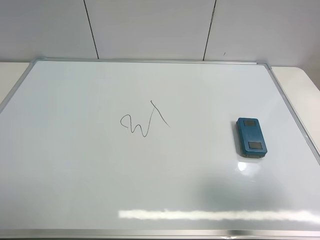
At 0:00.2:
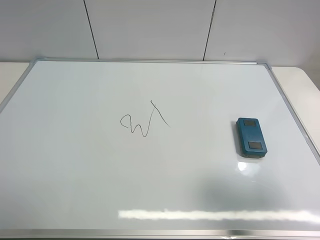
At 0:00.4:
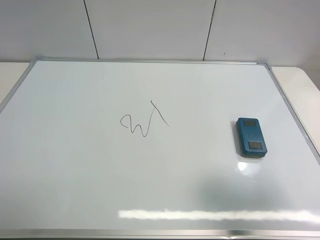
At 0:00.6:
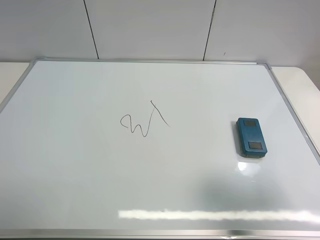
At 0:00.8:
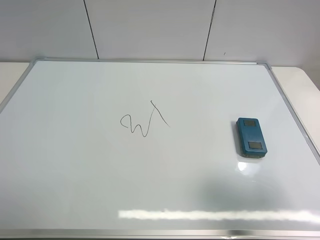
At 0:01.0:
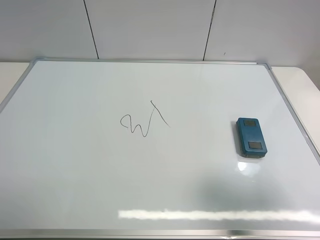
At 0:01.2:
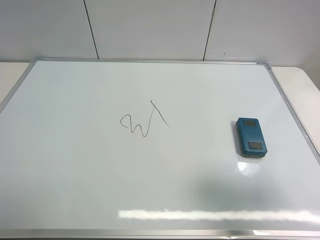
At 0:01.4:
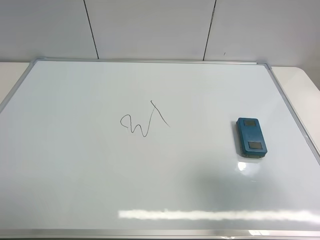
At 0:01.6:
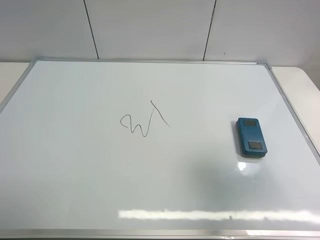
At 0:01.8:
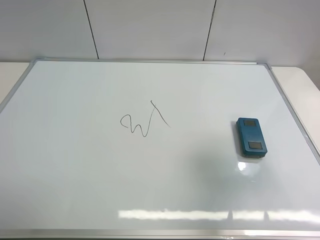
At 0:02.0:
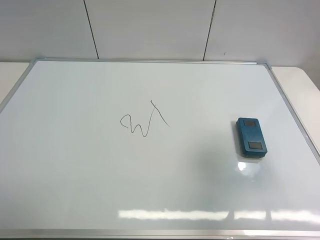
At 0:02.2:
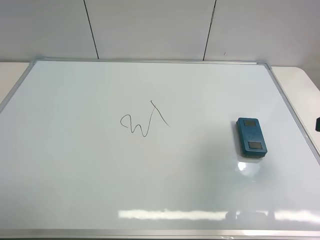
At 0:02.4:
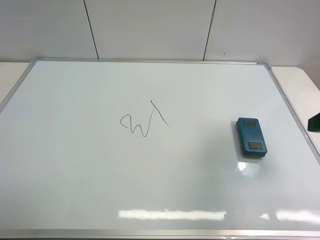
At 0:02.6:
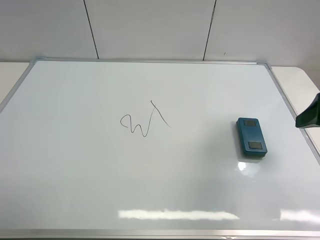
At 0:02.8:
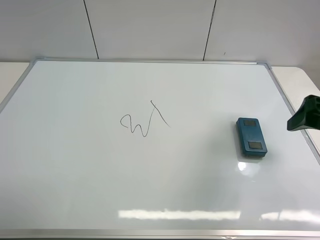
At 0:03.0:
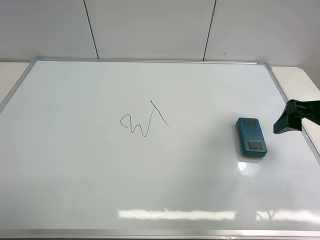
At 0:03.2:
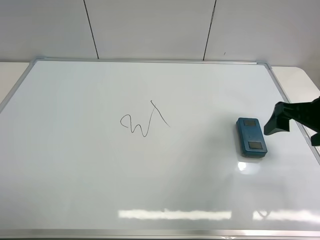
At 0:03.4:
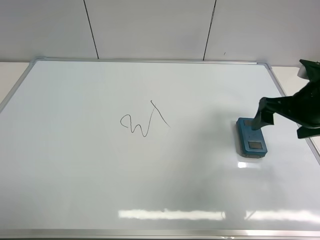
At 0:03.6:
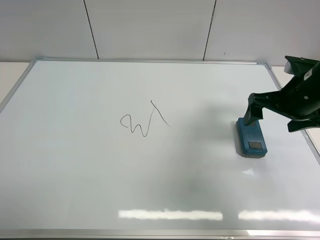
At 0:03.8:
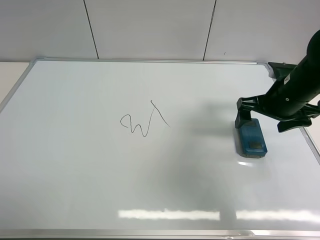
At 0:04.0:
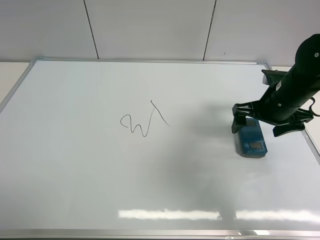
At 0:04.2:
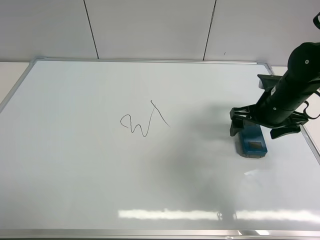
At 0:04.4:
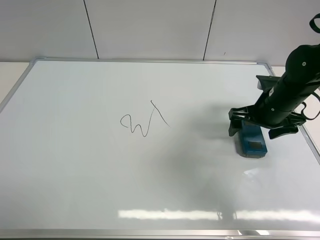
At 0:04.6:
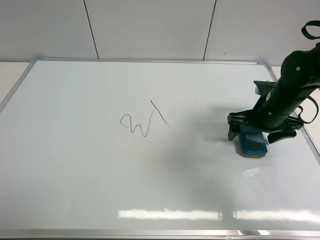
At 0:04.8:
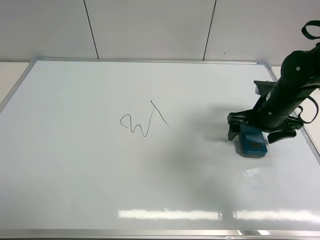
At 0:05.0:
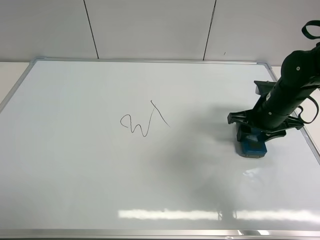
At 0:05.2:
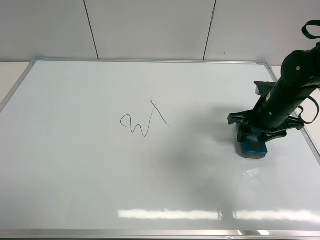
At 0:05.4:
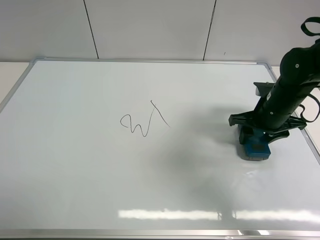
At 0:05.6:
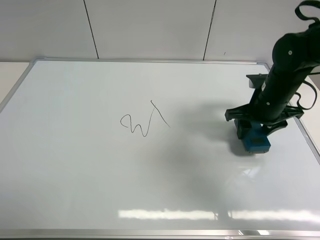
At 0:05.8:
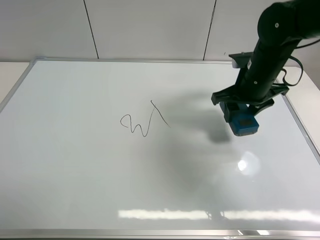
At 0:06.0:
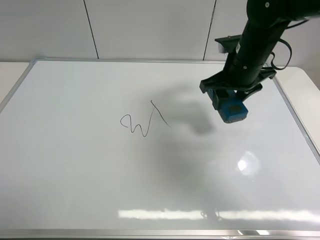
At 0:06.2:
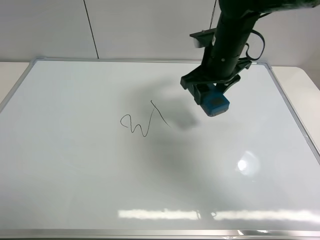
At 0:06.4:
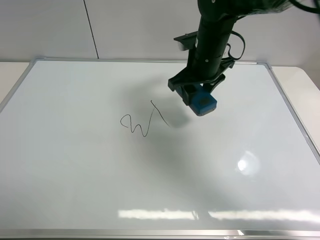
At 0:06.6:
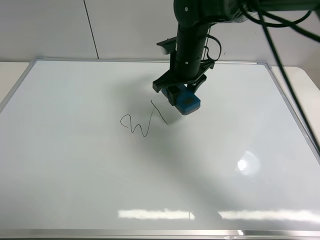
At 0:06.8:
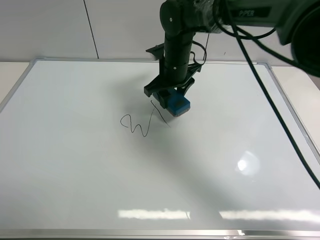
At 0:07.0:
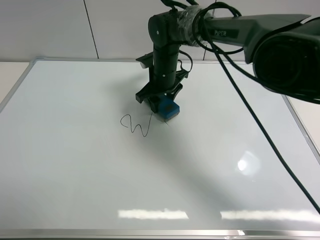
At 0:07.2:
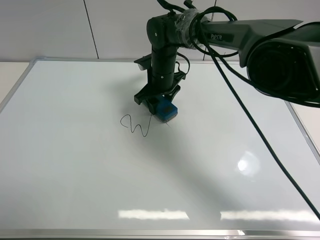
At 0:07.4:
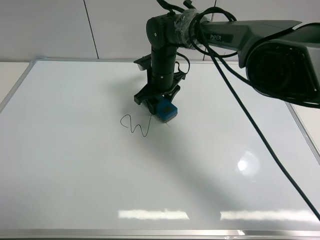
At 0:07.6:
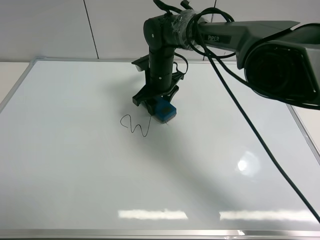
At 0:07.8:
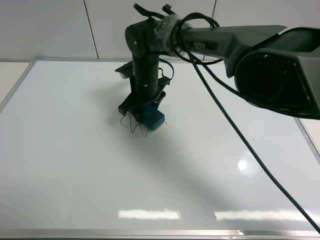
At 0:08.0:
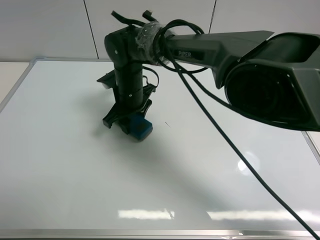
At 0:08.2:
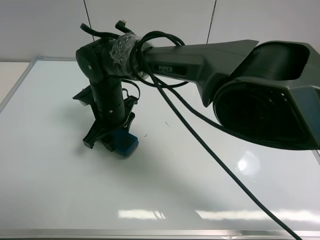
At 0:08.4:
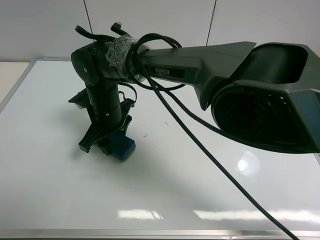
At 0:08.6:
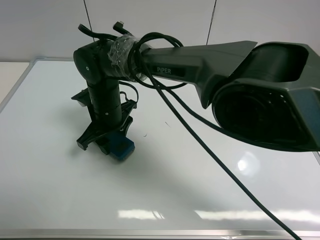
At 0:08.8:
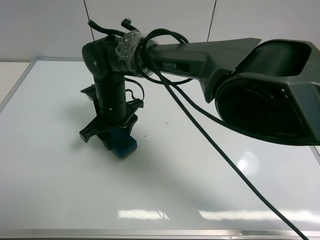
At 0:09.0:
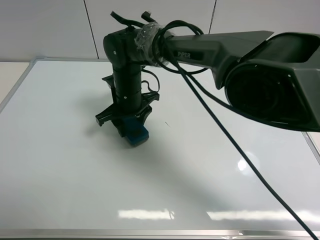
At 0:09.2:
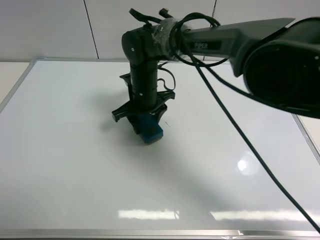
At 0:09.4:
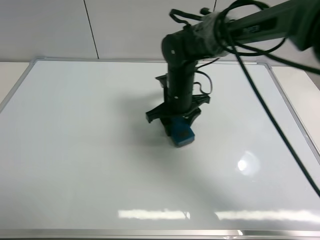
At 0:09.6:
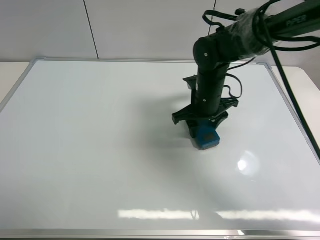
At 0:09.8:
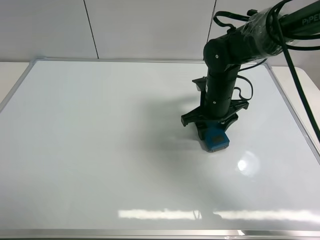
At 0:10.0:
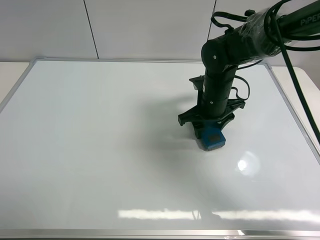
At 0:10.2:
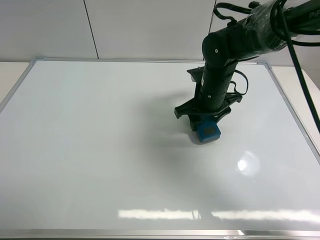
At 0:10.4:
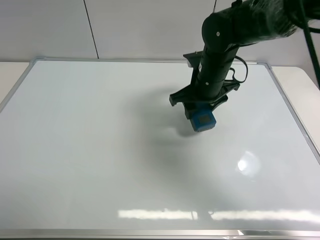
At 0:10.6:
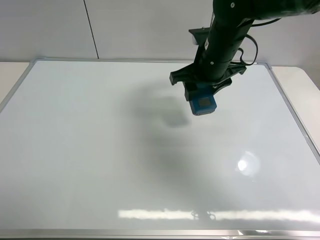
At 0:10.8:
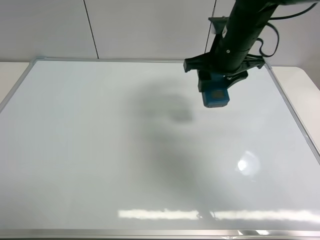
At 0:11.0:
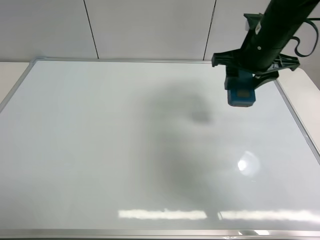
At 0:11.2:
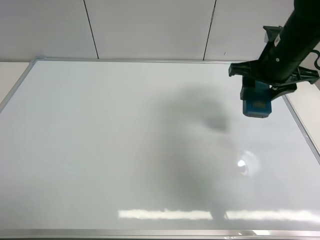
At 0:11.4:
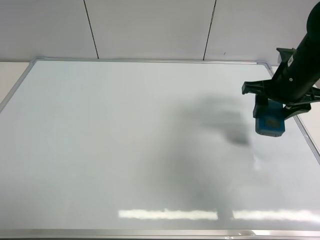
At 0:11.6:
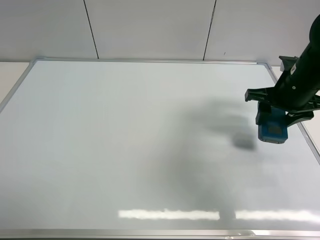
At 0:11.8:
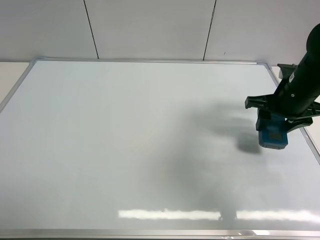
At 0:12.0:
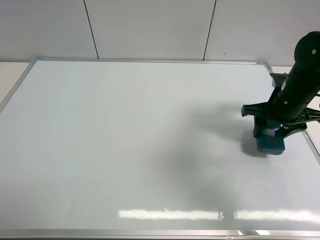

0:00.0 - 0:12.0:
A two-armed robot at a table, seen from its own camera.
Task of the whole recording: use the right gripper to pick up the board eraser, wipe the notes on the whiteboard clean, and then put them back in place.
Step, 0:00.0 - 0:05.4: Pick up the board eraser with right gripper.
Step, 0:05.6 - 0:10.0: Wipe off the writing on the board with right gripper.
0:00.0 - 0:01.6: The right gripper travels forward by about 5 cm.
0:01.6 - 0:03.0: The right gripper is displaced forward and downward by approximately 15 cm.
0:03.0 - 0:04.4: The right gripper is displaced forward, downward and to the left by some 15 cm.
0:04.4 - 0:06.0: The right gripper travels to the left and upward by approximately 10 cm, and closes its fingers.
0:06.0 - 0:07.6: The right gripper goes roughly 20 cm to the left, downward and forward.
0:07.6 - 0:09.0: The right gripper heads backward and to the left, covering approximately 10 cm.
0:09.0 - 0:10.4: The right gripper travels to the right by approximately 15 cm.
0:10.4 - 0:12.0: The right gripper travels to the right by about 15 cm.

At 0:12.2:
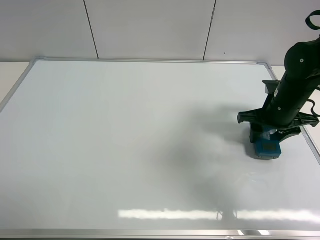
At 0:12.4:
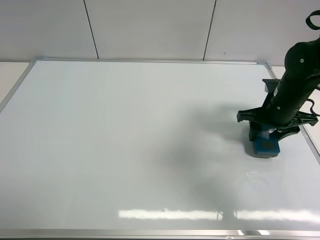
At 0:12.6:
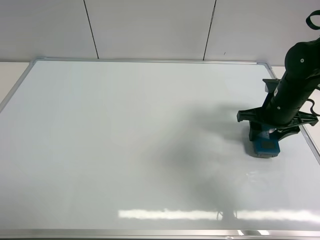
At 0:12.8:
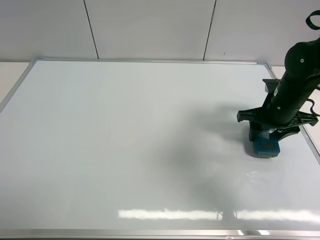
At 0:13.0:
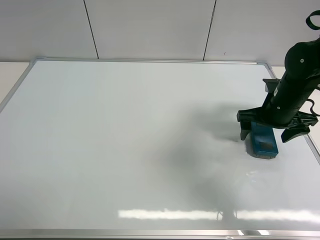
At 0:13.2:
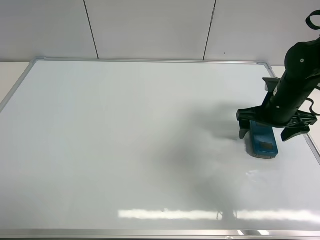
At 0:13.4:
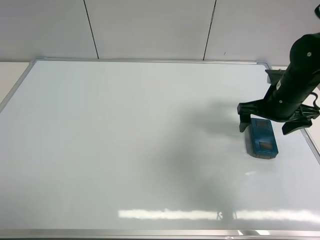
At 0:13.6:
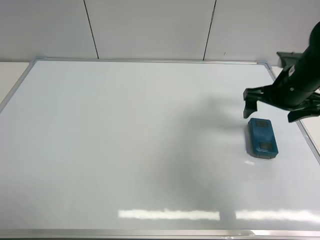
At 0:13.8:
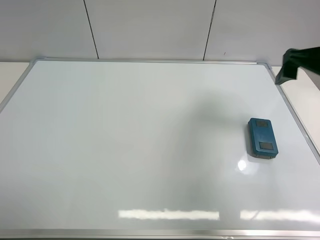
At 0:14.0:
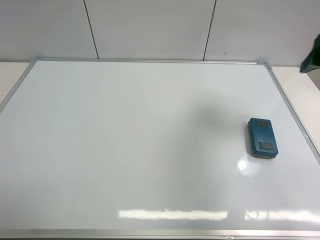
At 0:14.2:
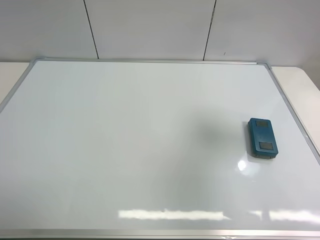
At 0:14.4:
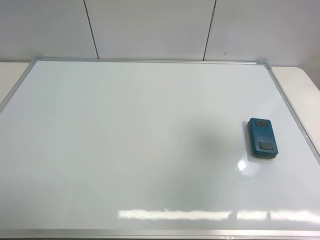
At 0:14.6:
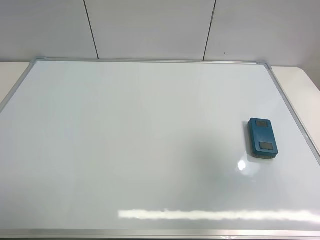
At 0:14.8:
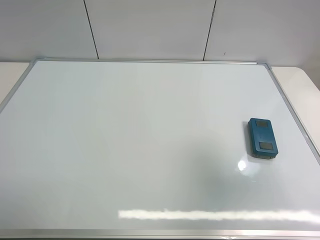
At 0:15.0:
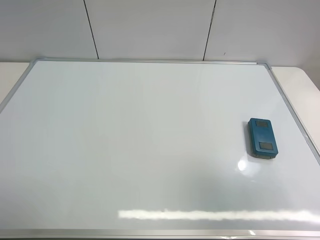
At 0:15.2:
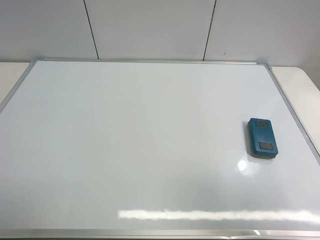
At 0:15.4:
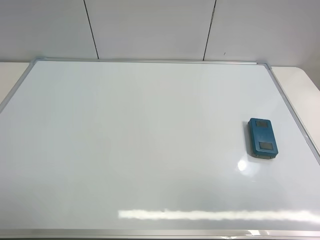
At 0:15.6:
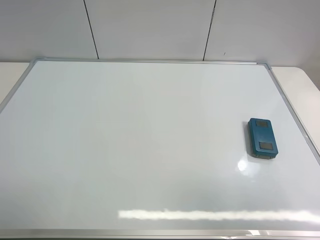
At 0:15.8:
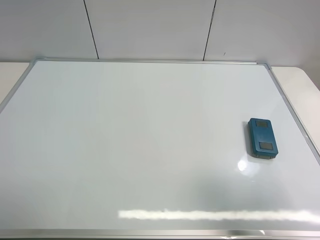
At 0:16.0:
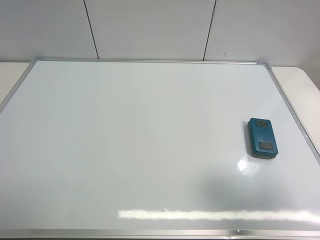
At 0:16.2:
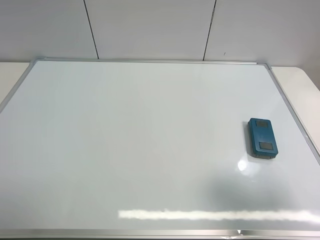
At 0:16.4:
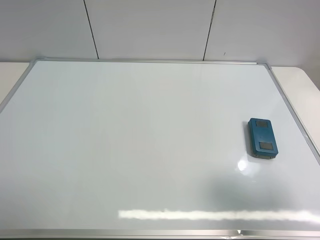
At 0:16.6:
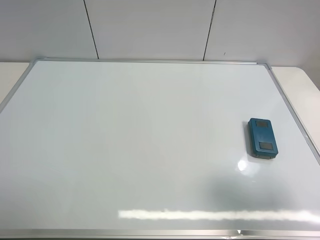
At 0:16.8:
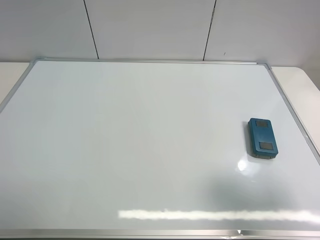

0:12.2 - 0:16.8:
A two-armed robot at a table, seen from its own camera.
Task of the whole recording: use the right gripper to pick up the board eraser, wipe the notes on the whiteboard clean, and then put them back in place.
0:12.2 - 0:13.8: The right gripper is displaced upward by about 15 cm, and opens.
0:13.8 - 0:15.2: The right gripper is displaced backward by approximately 30 cm.
0:15.2 - 0:16.8: The right gripper shifts about 10 cm downward and forward.
